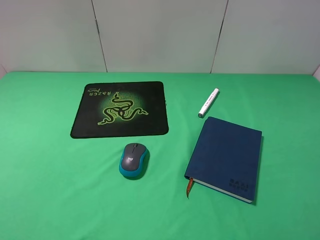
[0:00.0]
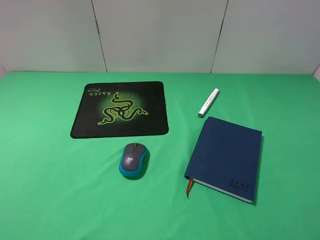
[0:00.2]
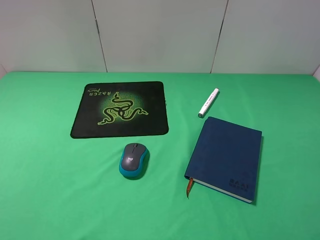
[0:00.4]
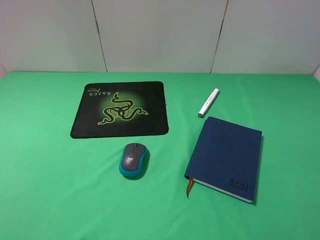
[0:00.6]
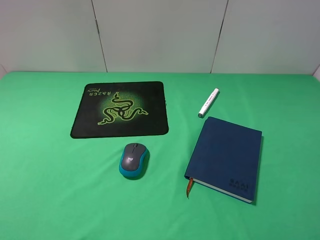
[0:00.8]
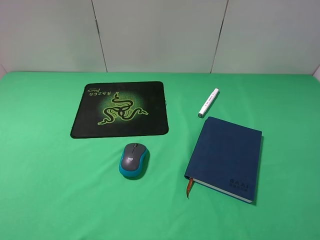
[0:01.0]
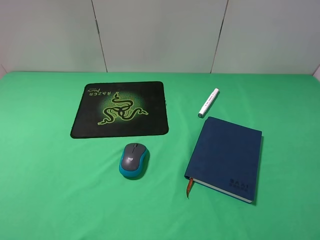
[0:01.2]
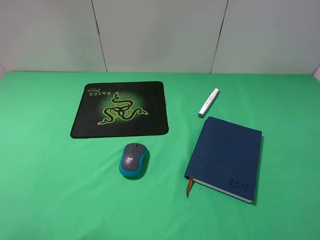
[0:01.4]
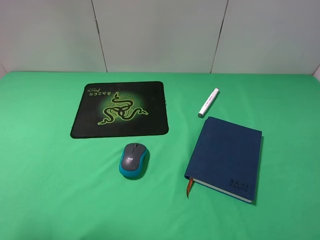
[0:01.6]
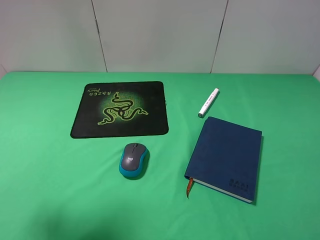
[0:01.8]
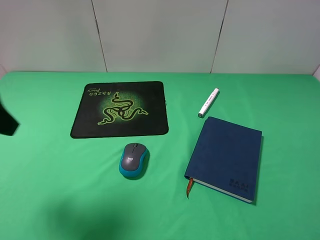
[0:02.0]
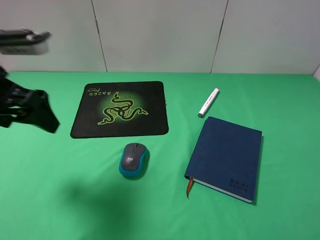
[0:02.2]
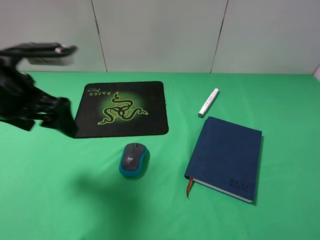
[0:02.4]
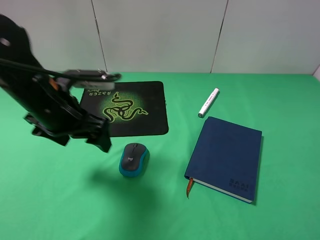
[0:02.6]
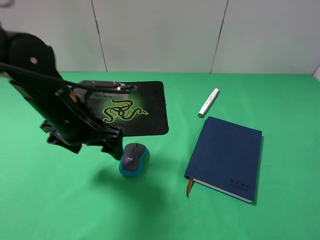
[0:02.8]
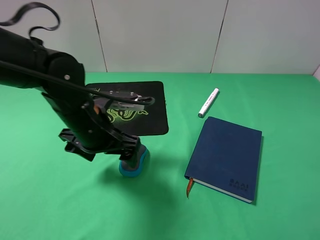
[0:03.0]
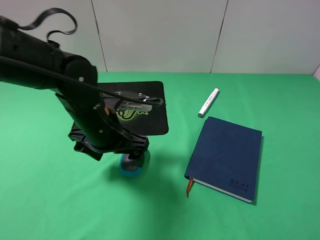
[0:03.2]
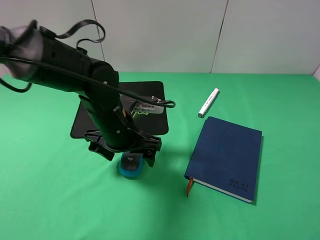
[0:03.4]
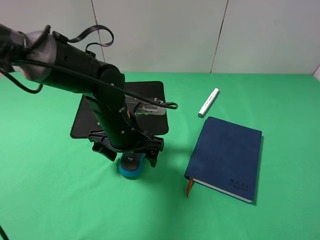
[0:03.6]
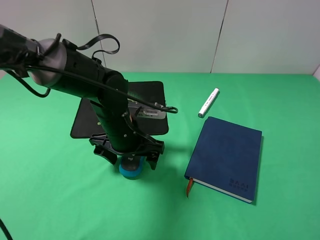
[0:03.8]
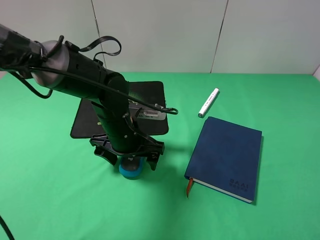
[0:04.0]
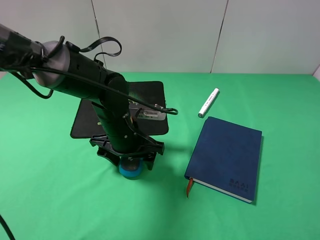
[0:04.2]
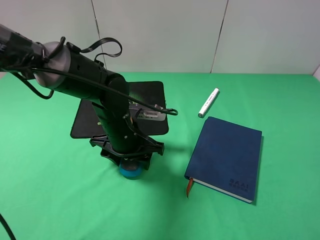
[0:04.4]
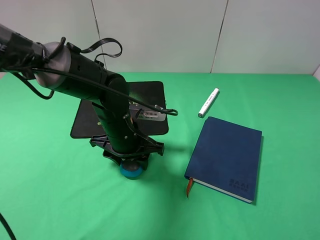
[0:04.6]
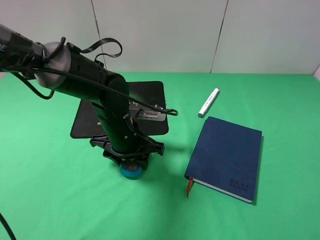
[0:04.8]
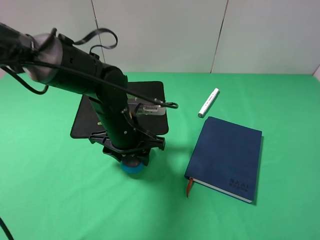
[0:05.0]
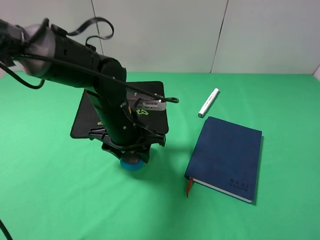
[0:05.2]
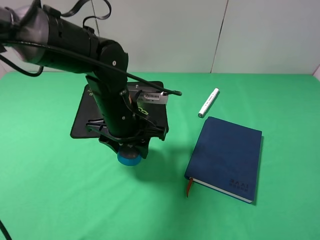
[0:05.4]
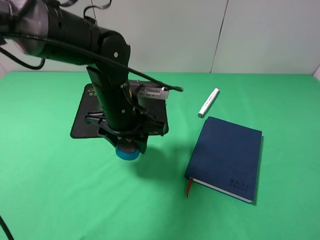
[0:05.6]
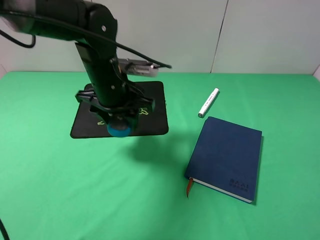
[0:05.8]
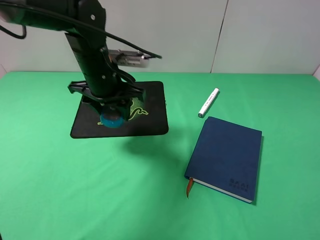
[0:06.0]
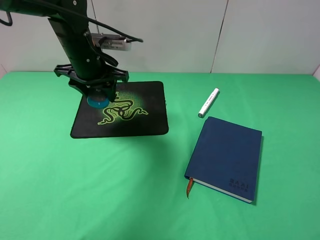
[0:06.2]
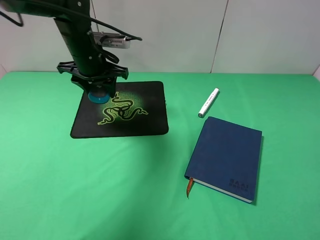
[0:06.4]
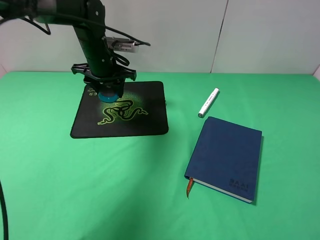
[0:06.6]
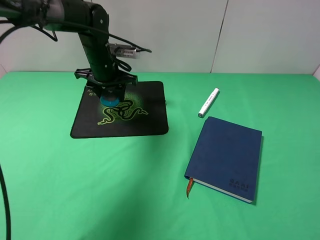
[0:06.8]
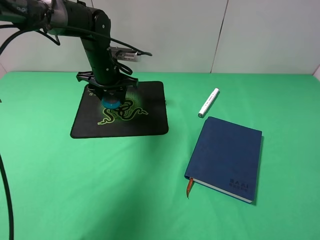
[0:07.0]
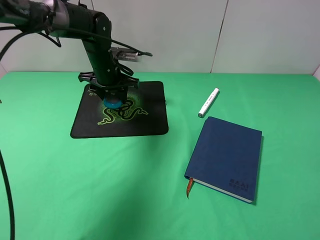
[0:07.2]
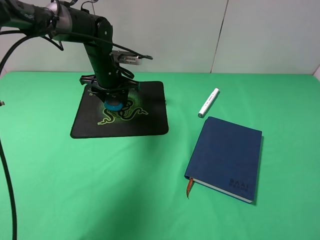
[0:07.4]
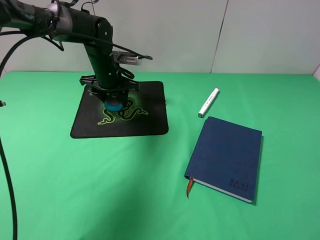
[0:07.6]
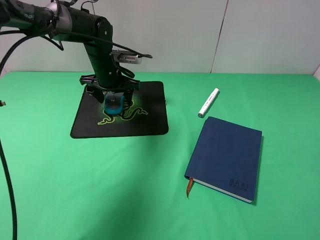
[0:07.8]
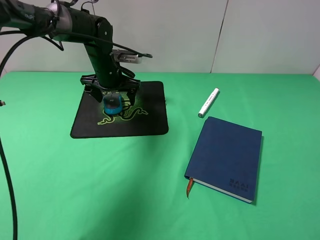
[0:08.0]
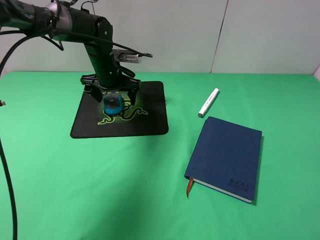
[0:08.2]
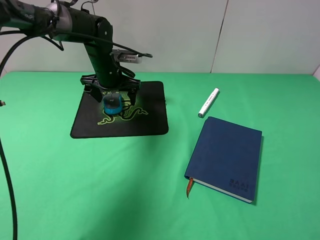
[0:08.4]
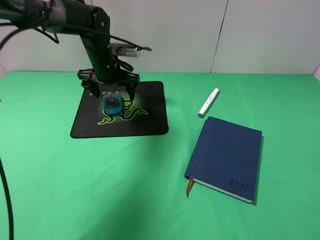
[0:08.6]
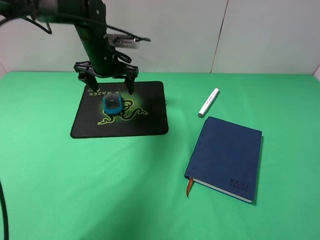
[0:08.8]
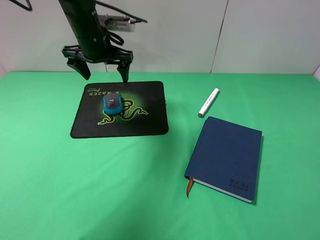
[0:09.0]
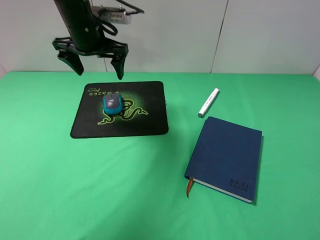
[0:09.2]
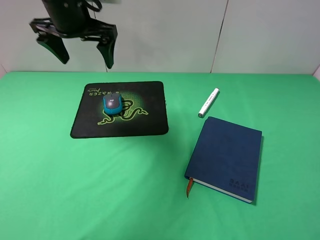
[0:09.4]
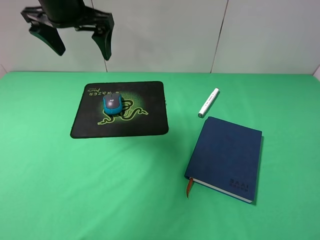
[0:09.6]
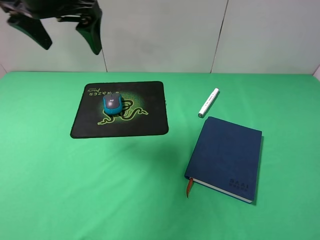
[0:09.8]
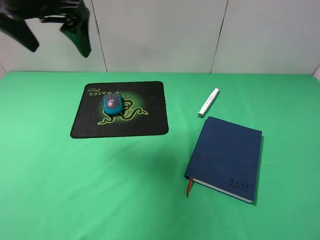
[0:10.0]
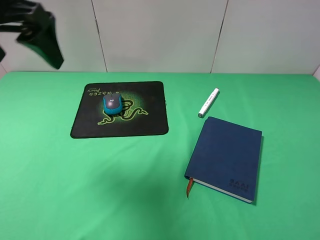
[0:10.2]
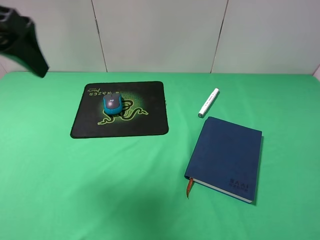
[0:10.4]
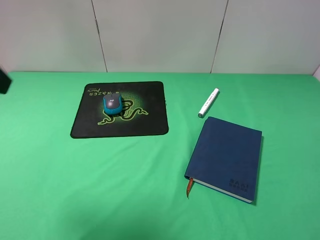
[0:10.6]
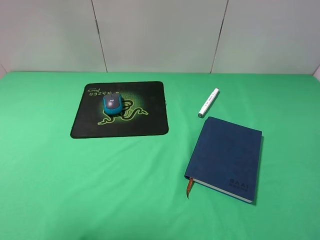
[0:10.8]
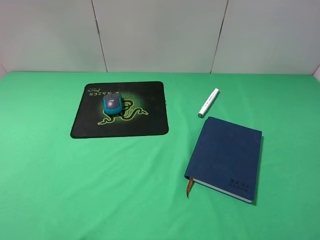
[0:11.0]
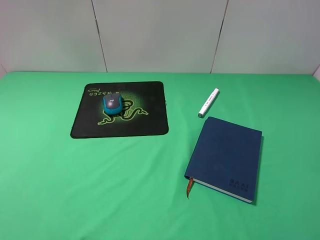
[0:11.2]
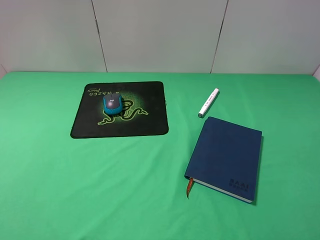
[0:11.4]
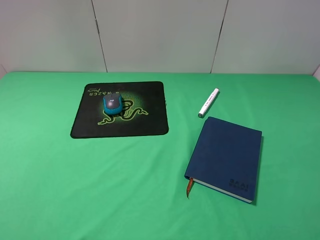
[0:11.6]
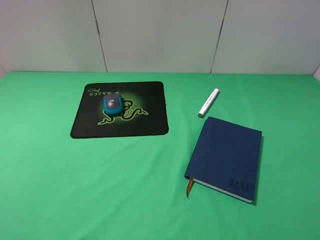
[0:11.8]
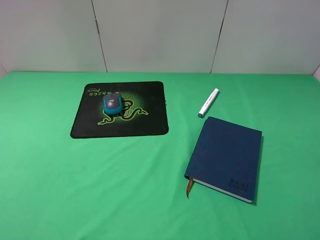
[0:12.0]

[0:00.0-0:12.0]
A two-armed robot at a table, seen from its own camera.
Step, 0:00.0 to 0:04.4: Grasp the mouse with the left gripper.
Step, 0:04.6 to 0:08.2: Place the mouse on the mouse pad with the left gripper.
0:01.6 to 0:03.0: The left gripper moves to the right, downward and forward, approximately 30 cm.
0:03.0 to 0:04.4: The left gripper shifts by about 5 cm, and closes.
0:04.4 to 0:06.0: The left gripper moves upward and forward, roughly 10 cm.
0:06.0 to 0:07.6: The left gripper shifts roughly 10 cm forward and downward.
0:07.6 to 0:09.0: The left gripper is displaced upward by some 10 cm, and opens its fingers.
0:09.0 to 0:10.4: The left gripper is displaced backward, upward and to the left by some 25 cm.
0:10.4 to 0:12.0: The left gripper goes some 20 cm backward and downward.

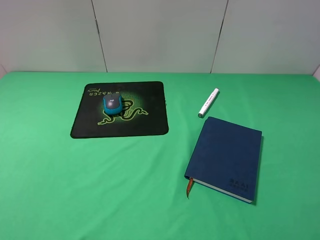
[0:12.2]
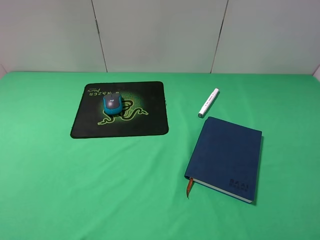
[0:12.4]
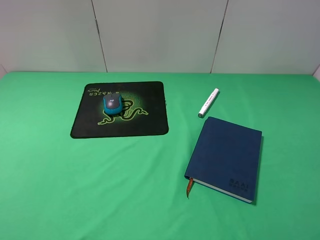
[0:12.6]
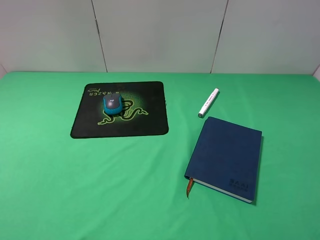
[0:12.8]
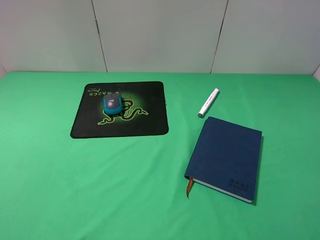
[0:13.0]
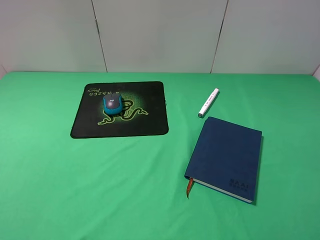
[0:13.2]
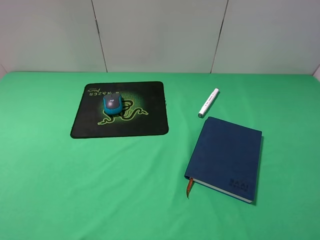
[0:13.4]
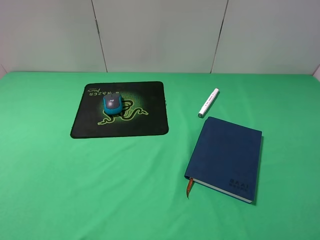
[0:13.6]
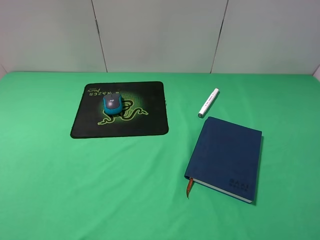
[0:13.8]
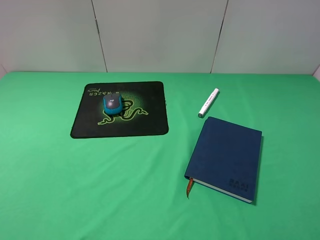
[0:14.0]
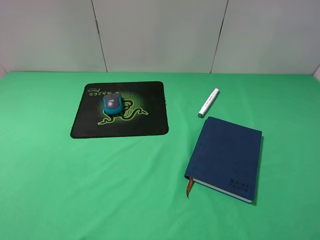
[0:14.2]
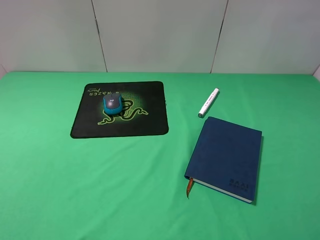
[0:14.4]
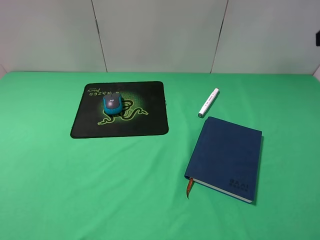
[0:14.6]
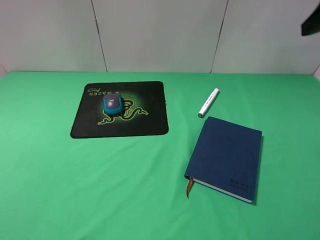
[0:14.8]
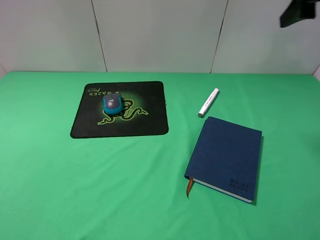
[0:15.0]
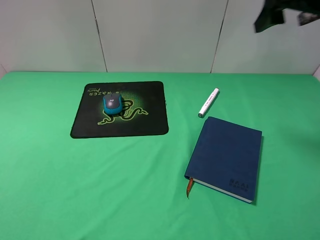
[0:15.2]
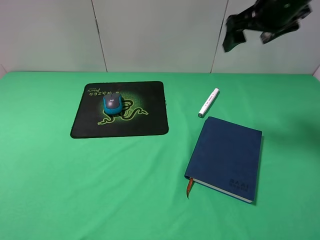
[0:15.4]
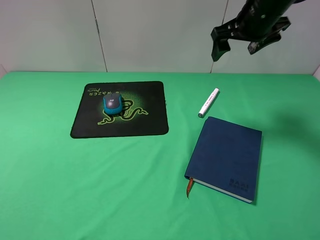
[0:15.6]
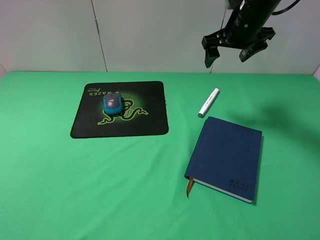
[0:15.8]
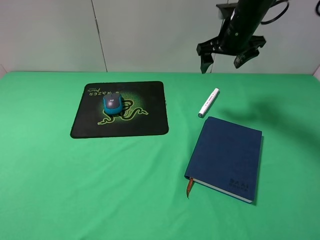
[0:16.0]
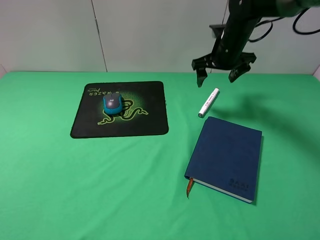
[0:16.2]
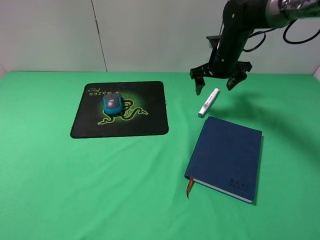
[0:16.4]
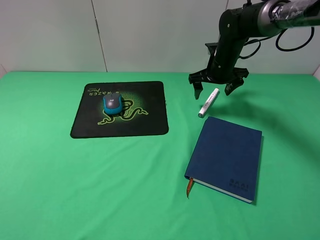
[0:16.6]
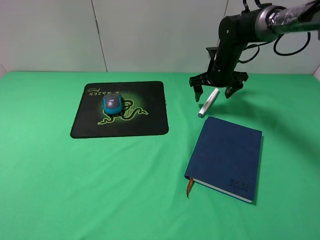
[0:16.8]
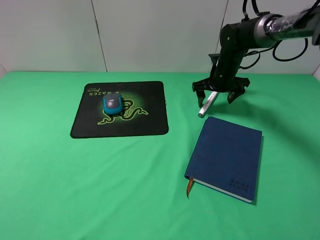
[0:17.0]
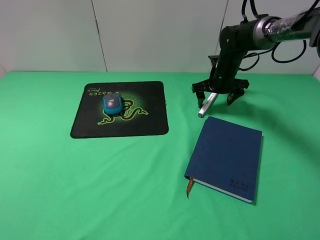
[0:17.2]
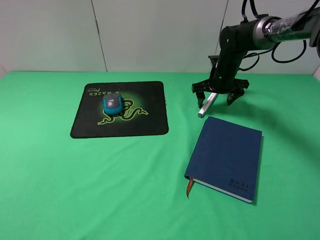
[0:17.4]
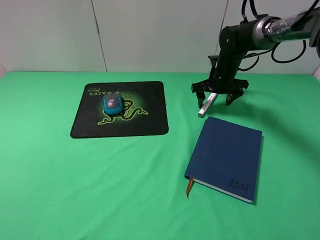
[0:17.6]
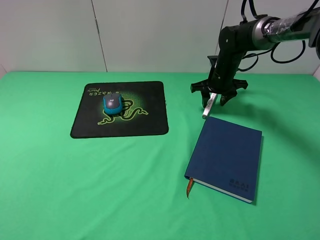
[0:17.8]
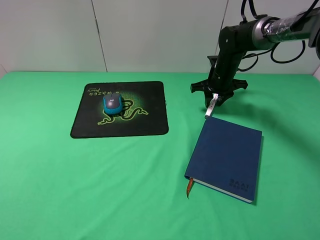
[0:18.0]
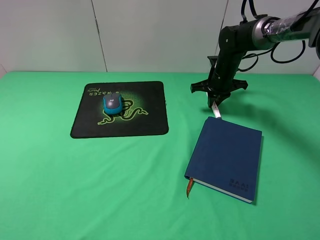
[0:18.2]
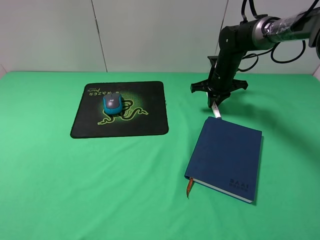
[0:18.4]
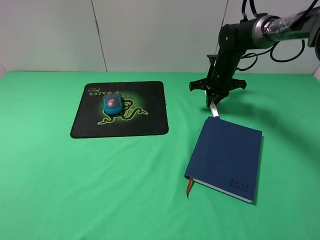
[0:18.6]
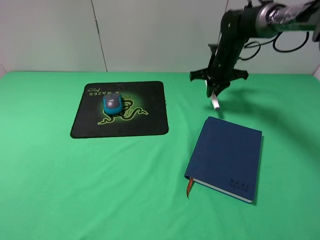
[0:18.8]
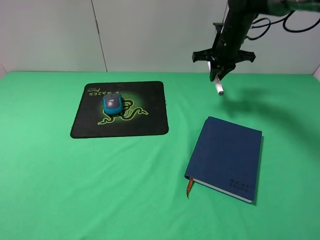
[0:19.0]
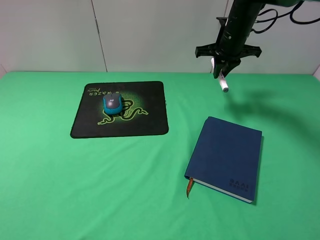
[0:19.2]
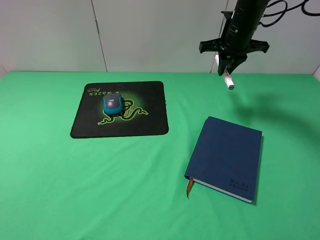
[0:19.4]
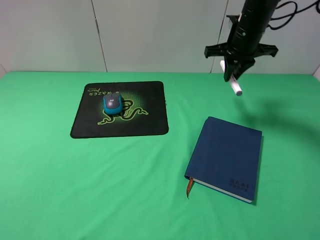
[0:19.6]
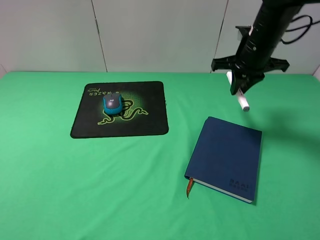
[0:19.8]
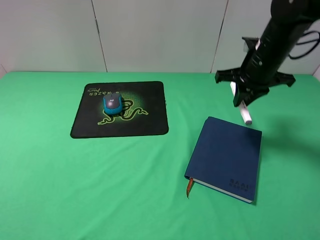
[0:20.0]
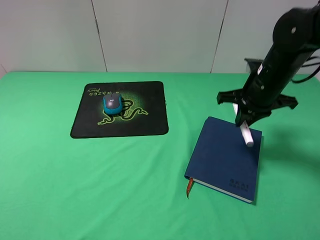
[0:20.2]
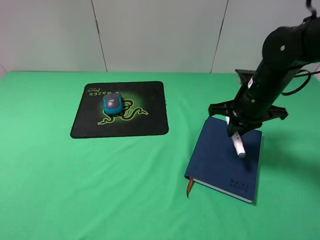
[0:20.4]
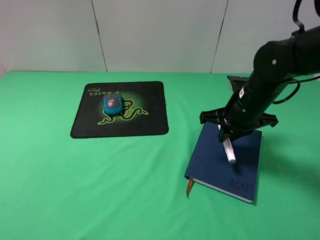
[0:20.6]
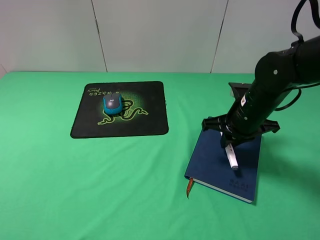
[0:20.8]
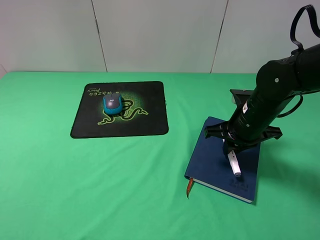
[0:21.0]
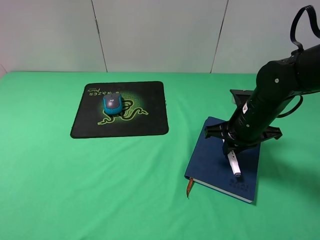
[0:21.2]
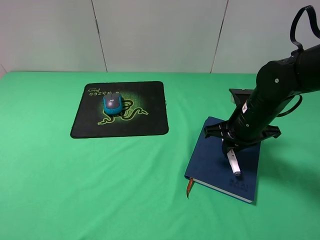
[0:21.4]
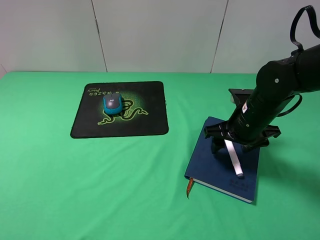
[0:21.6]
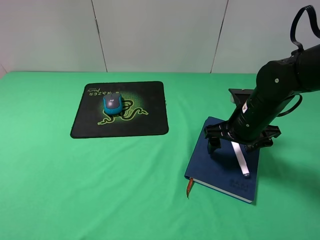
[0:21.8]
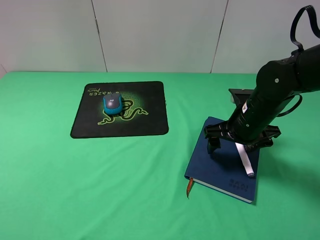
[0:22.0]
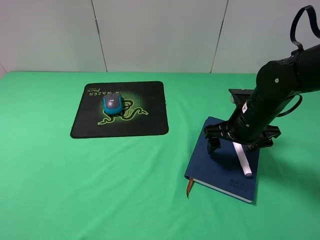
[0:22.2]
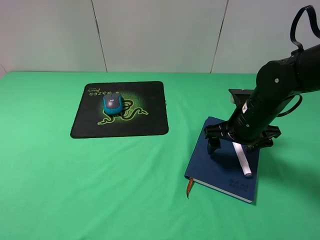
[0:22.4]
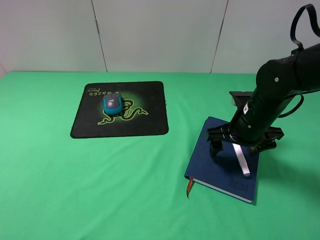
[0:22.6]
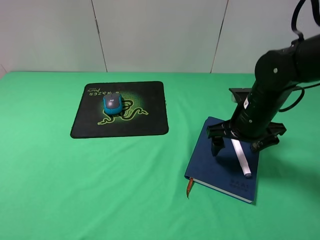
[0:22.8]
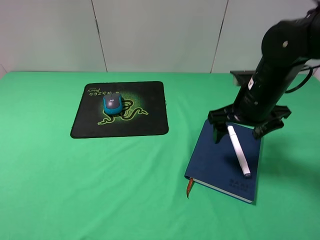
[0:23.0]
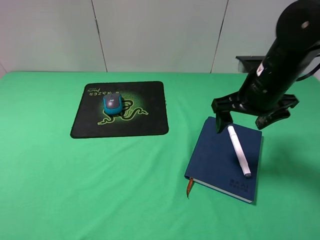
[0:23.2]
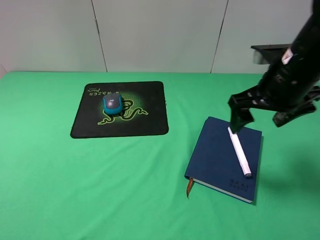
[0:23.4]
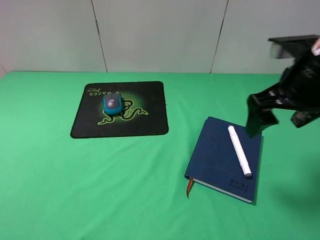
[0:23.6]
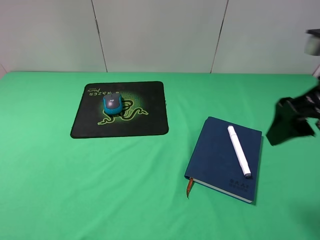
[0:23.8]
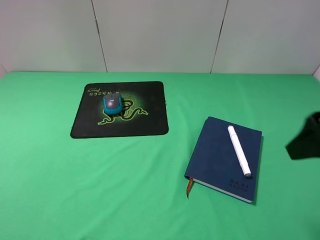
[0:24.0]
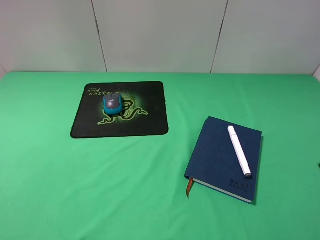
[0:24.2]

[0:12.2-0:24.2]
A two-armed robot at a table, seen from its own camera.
Step, 0:12.2 to 0:18.0: Grasp the marker with the right gripper.
Step, 0:18.2 to 0:21.8: Place the marker on the notebook with the right gripper.
0:13.8 to 0:15.2: The right gripper moves forward, some 30 cm.
0:15.2 to 0:16.6: The right gripper goes roughly 25 cm downward and forward.
0:16.6 to 0:18.2: The right gripper closes up.
0:18.2 to 0:19.8: The right gripper is displaced upward and backward by about 15 cm.
0:19.8 to 0:21.2: The right gripper shifts roughly 15 cm backward and downward.
0:21.2 to 0:22.6: The right gripper opens up.
0:22.6 to 0:24.2: The right gripper shifts roughly 30 cm backward, upward and to the right.
